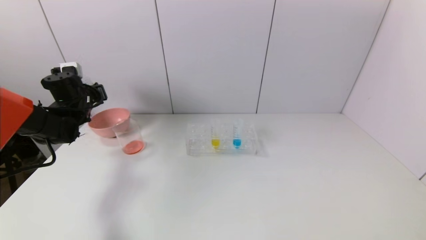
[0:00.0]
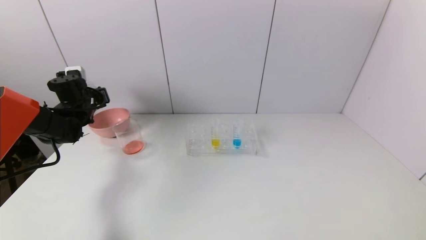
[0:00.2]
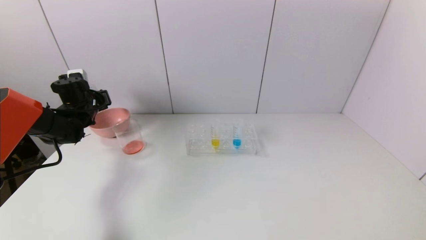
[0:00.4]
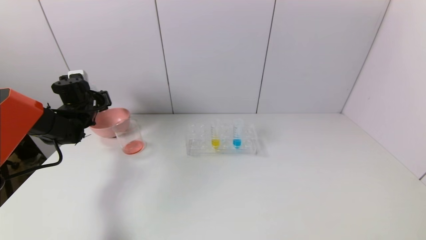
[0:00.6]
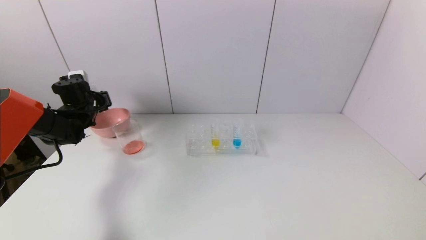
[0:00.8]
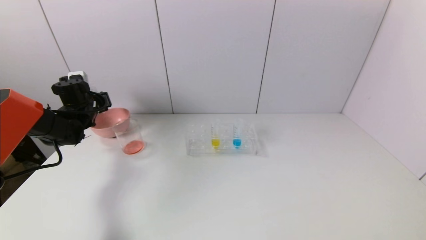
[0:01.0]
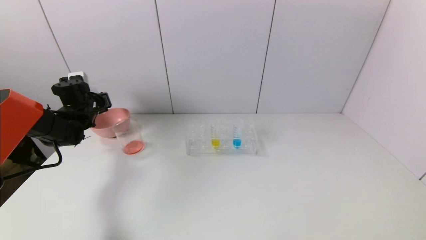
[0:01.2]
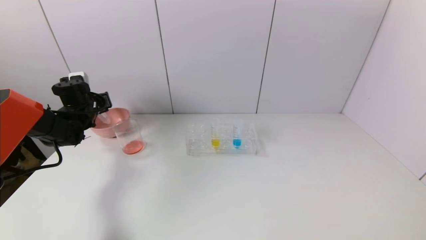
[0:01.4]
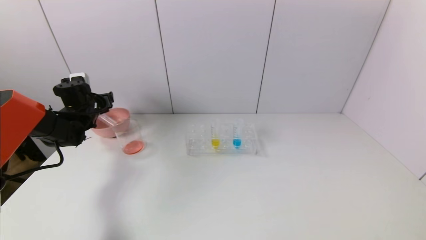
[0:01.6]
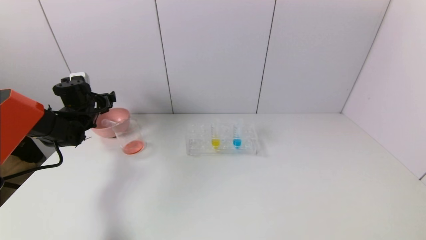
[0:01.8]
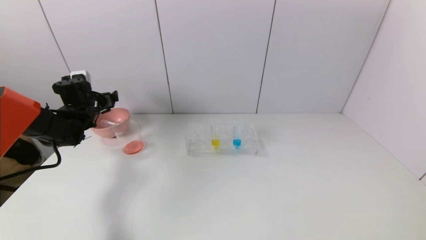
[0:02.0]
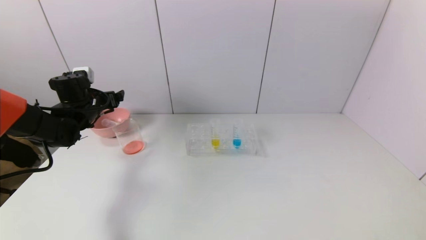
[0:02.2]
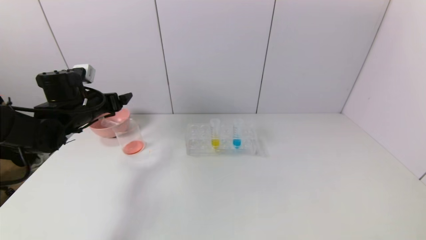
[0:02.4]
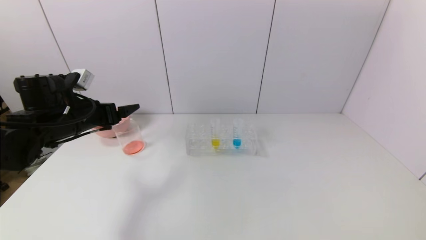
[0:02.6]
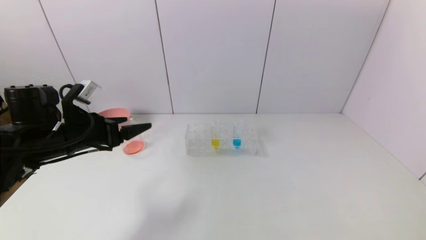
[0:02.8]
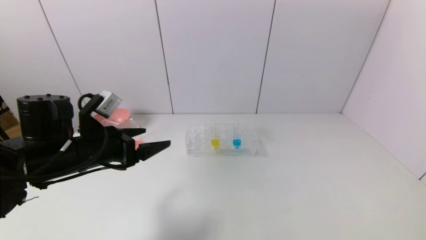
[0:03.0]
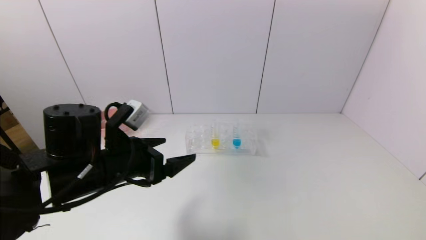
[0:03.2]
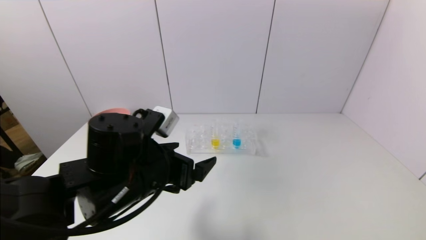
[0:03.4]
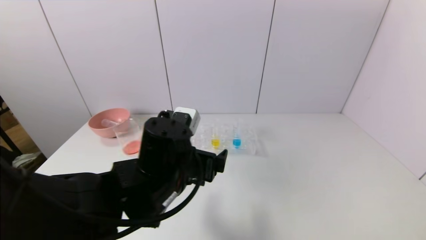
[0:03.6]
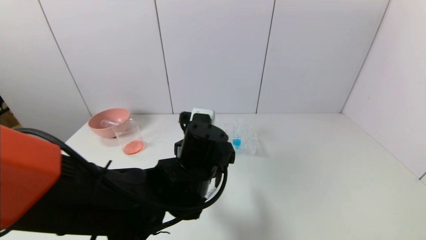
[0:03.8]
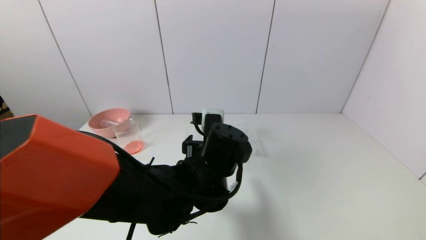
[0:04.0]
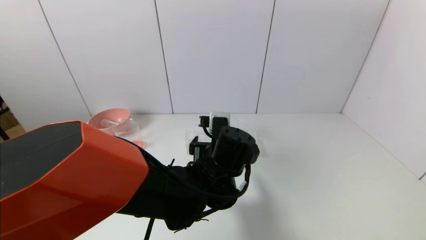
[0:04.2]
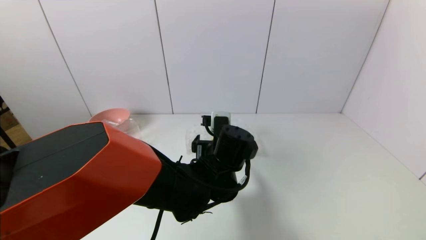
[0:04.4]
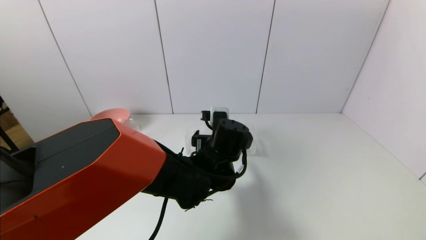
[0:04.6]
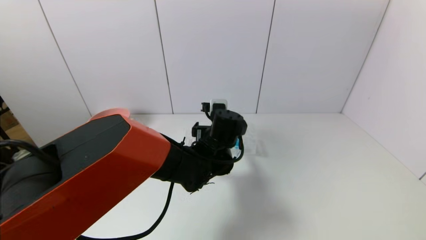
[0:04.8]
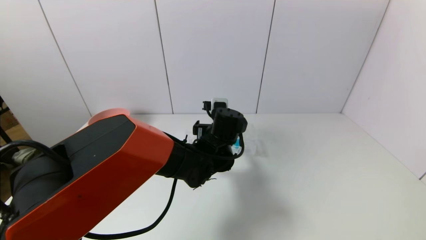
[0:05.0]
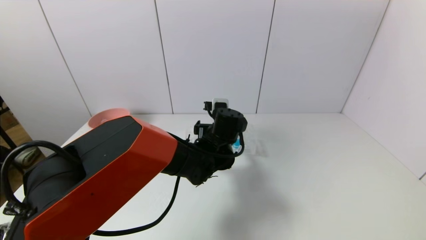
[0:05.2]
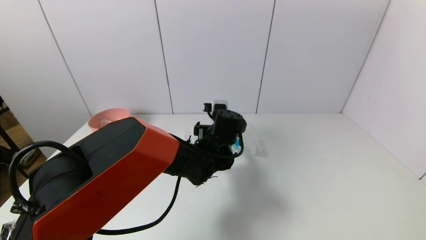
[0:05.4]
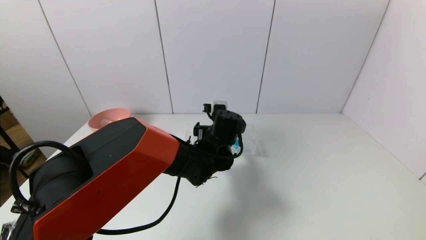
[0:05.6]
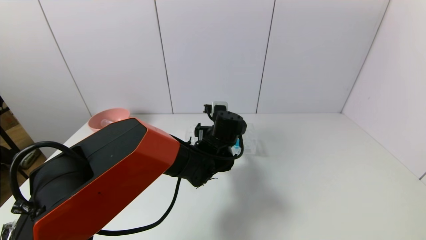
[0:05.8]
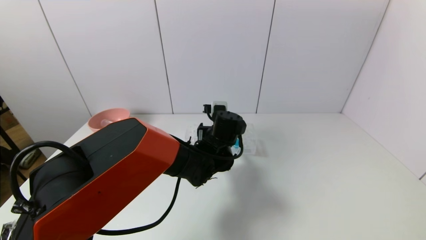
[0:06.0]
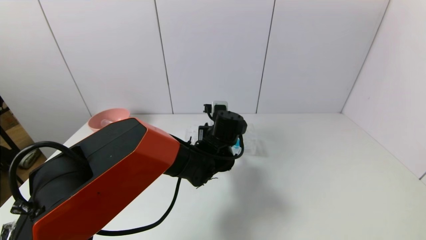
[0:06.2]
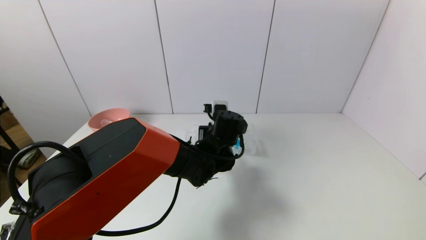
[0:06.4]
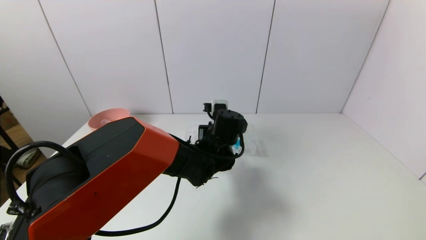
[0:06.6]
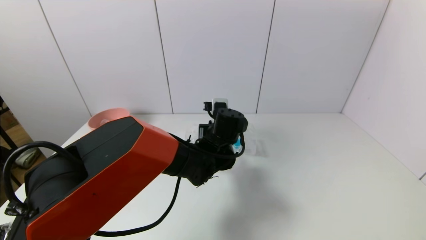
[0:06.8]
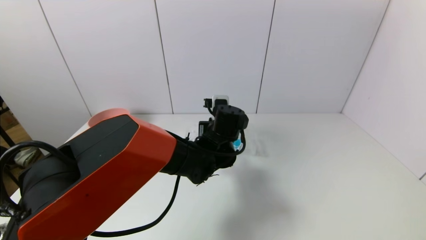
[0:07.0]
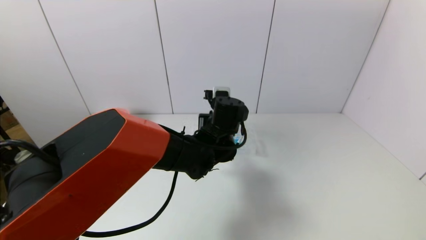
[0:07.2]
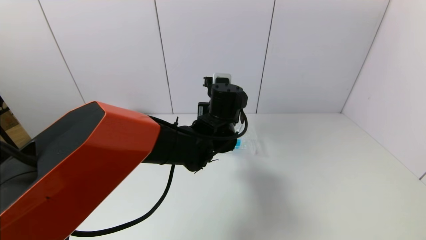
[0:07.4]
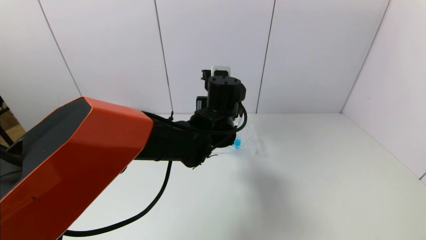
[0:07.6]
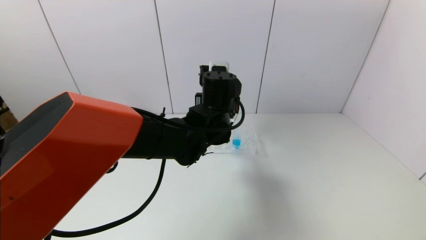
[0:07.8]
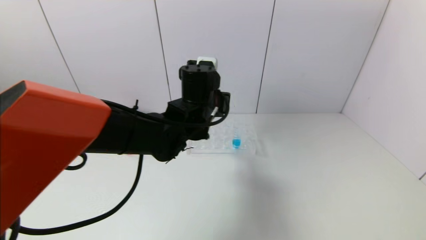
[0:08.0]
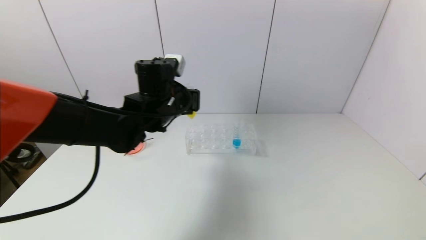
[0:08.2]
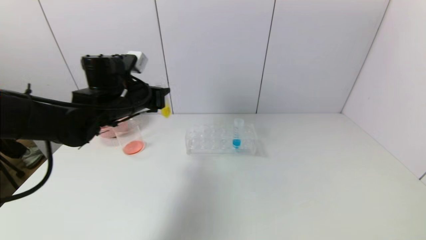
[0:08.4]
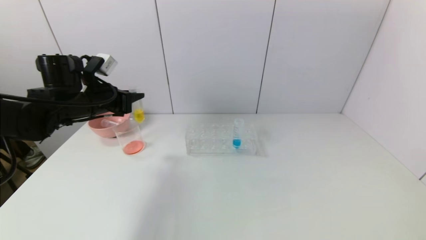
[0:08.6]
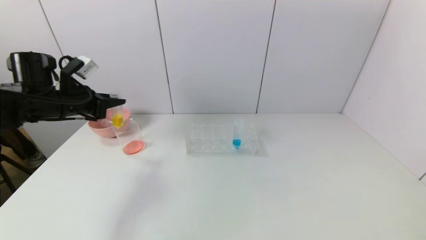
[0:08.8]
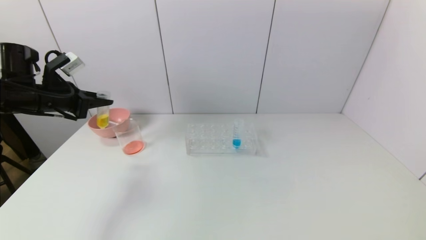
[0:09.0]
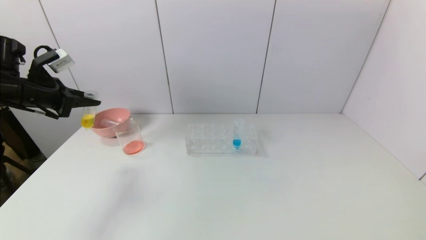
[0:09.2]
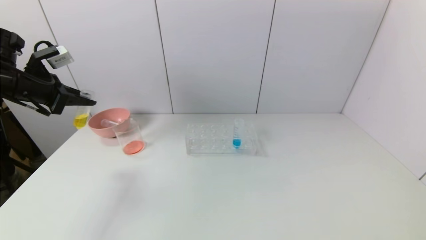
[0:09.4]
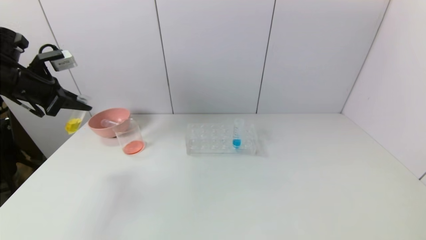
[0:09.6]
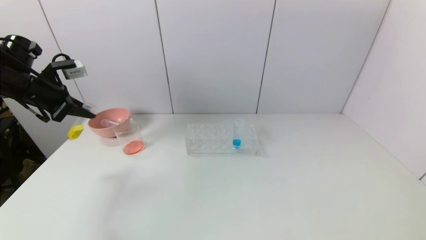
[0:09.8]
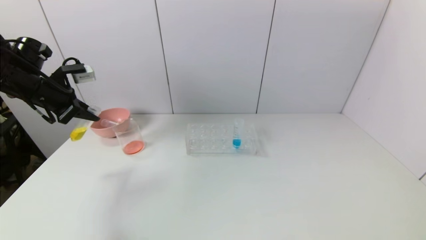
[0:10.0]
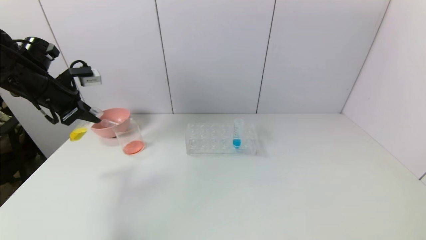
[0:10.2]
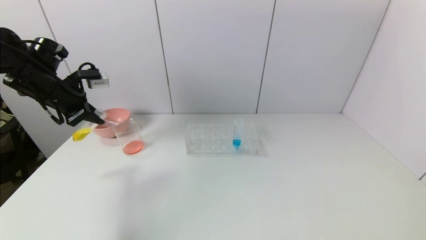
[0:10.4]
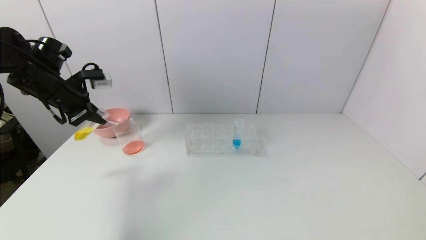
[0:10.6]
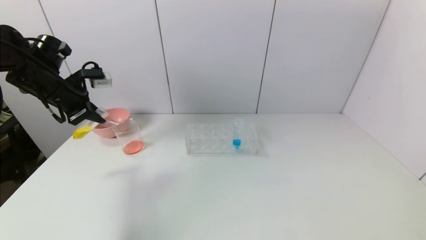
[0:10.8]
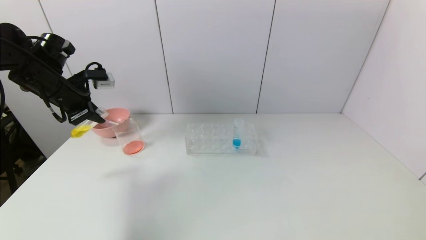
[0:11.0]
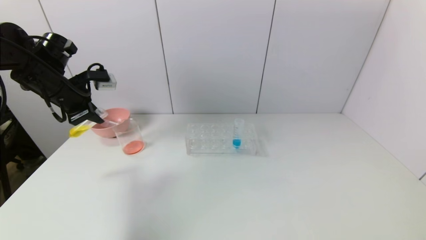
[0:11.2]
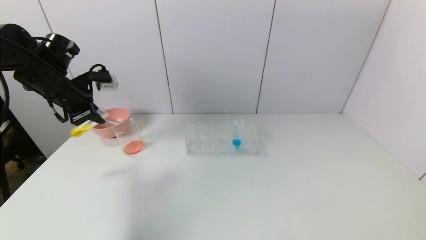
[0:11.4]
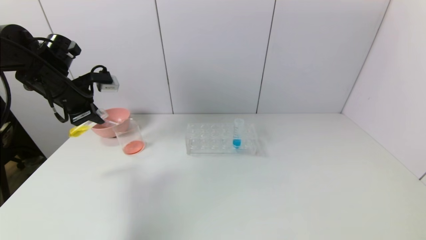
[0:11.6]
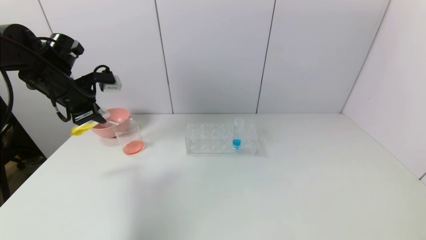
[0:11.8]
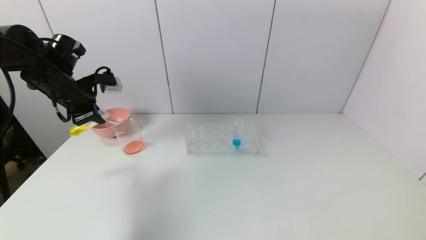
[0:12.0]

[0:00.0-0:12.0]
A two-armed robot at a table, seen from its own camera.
Task of the whole recording: pick up the test tube with yellow pigment and the test tube with red pigment by grippers and pour them into the beaker.
Step, 0:01.8 to 0:06.4: Grasp the yellow reagent with the left gripper.
0:00.0 to 0:01.6: The left gripper opens its fingers.
0:01.6 to 0:03.0: The left gripper travels backward and to the right by approximately 25 cm.
0:03.0 to 0:04.4: The left gripper moves to the right, some 25 cm.
0:04.4 to 0:06.0: The left gripper moves forward, approximately 5 cm, and closes up.
0:06.0 to 0:07.6: The left gripper is displaced upward by approximately 10 cm, and closes.
0:07.6 to 0:09.0: The left gripper heads to the left, covering about 40 cm.
0:10.4 to 0:12.0: The grippers move only a little.

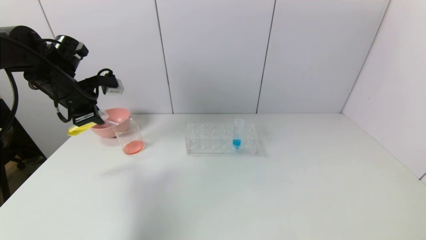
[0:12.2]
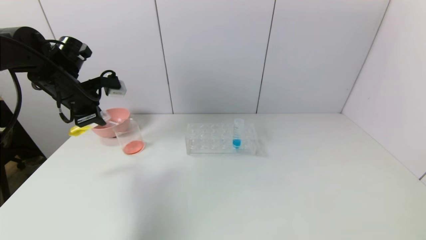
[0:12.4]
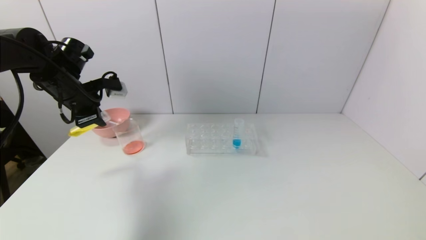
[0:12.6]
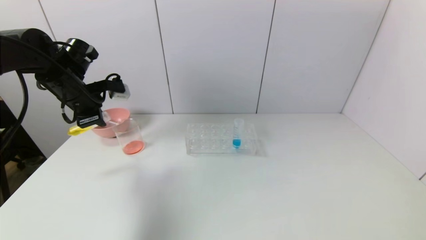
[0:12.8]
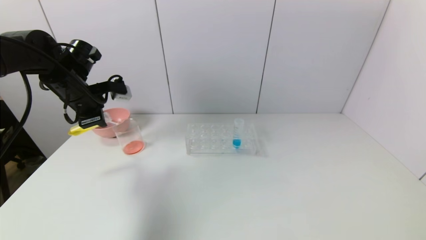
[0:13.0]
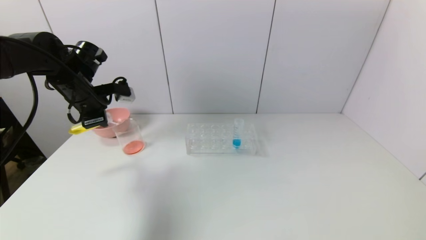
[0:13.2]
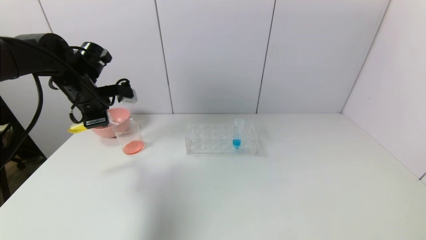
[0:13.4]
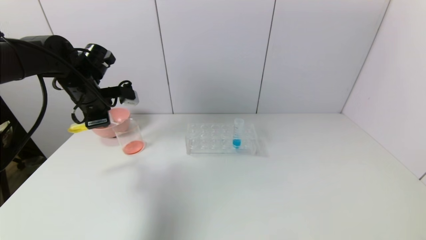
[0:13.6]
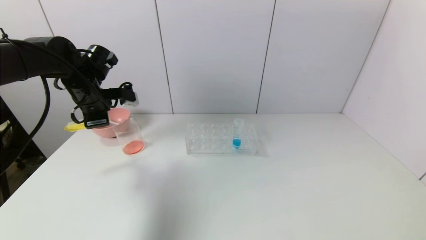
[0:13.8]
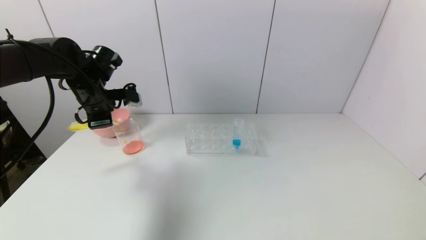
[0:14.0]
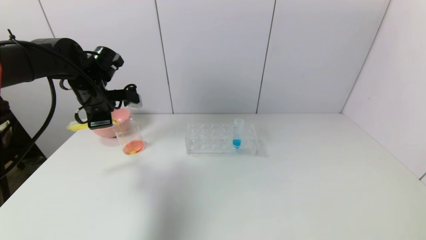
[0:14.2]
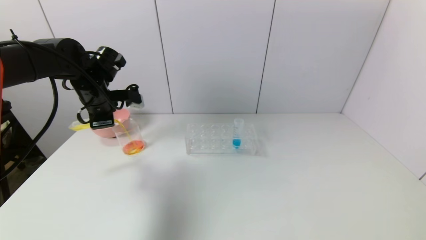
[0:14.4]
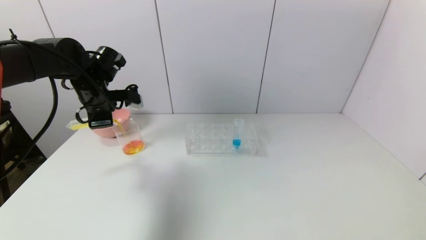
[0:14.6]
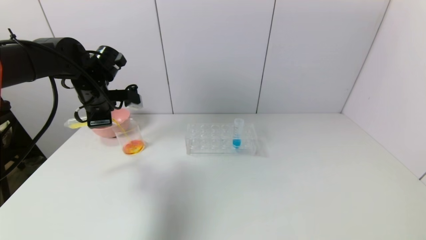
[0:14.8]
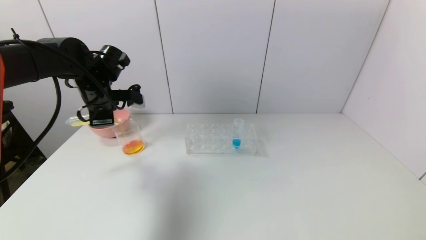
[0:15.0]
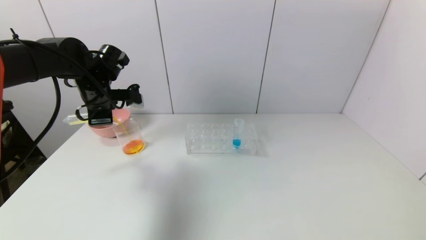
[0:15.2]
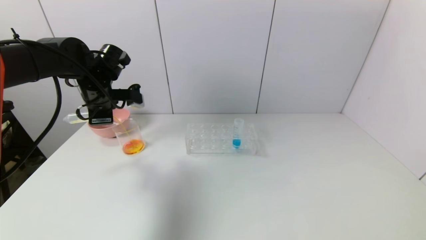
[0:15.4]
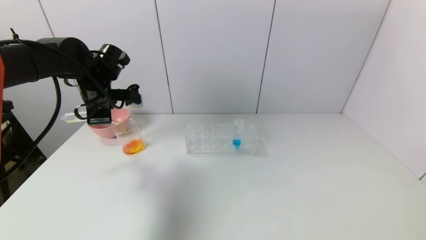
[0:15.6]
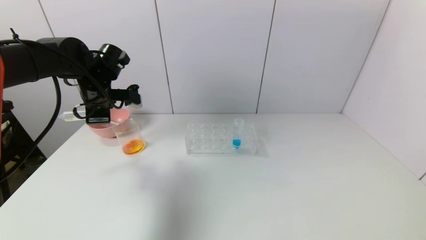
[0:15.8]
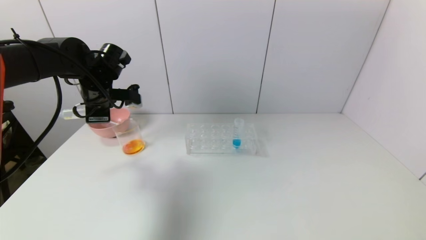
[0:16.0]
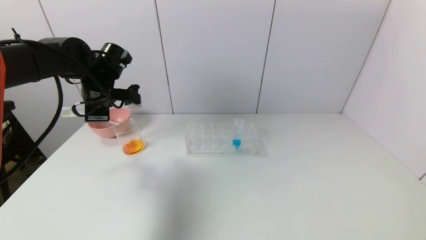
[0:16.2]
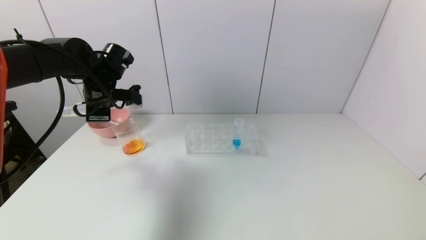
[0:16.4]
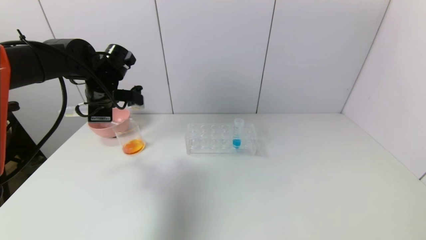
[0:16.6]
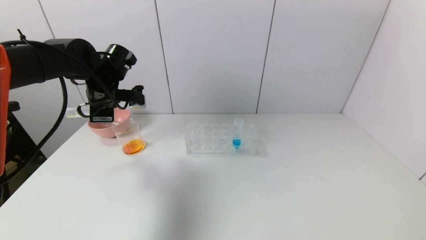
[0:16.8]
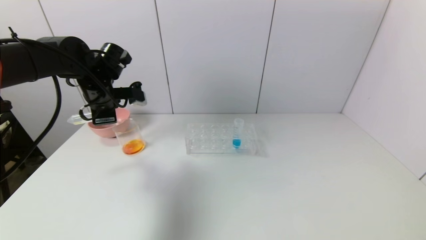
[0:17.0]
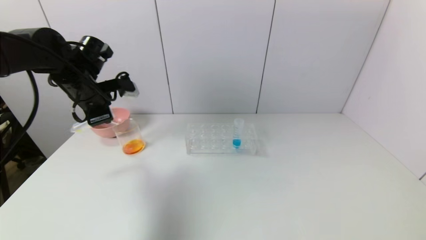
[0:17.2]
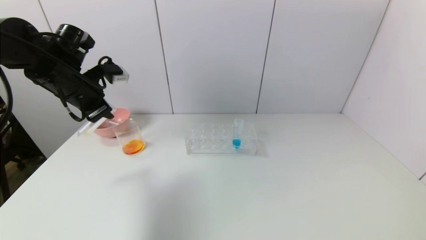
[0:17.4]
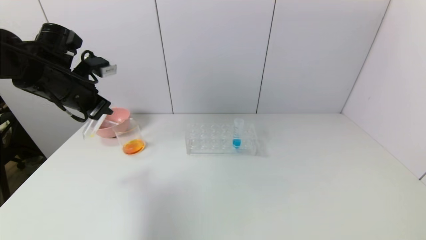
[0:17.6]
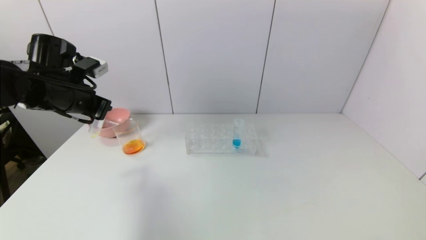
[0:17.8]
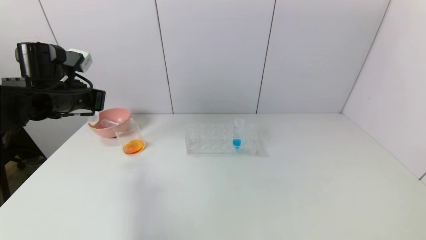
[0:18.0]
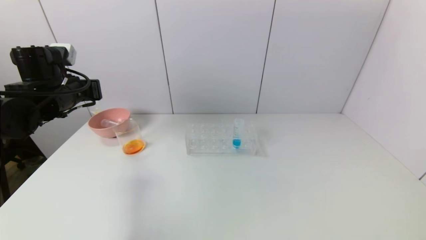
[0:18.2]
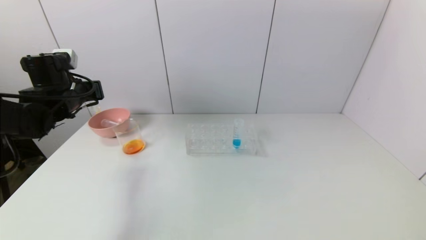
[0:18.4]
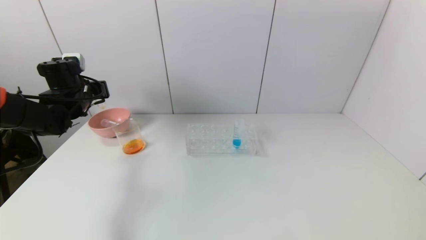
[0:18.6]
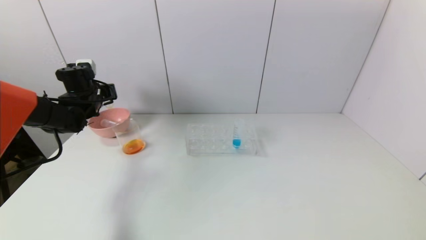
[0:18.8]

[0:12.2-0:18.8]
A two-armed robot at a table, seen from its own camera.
Task of the whole recording: pick up the test tube with yellow pigment and the test tube with red pigment by grippers and pour them into the beaker.
Step, 0:12.2 to 0:16.6: Pour the yellow reagent into the graduated cylinder with the left gripper.
0:12.2 to 0:13.8: The grippers move only a little.
0:13.8 to 0:15.4: There are only small adjustments of the grippers.
0:17.2 to 0:18.8: The left gripper goes some 15 cm forward, downward and to the left.
